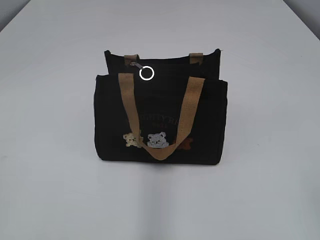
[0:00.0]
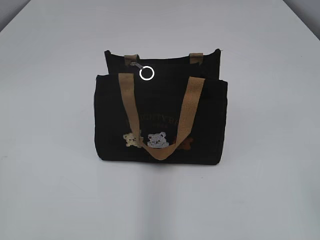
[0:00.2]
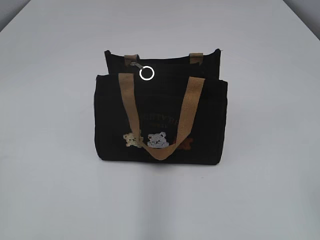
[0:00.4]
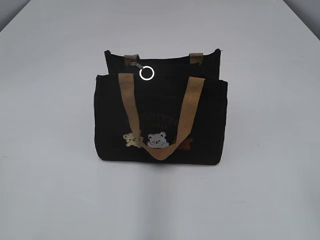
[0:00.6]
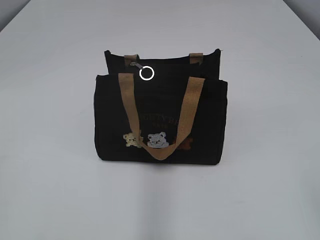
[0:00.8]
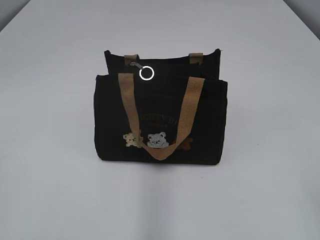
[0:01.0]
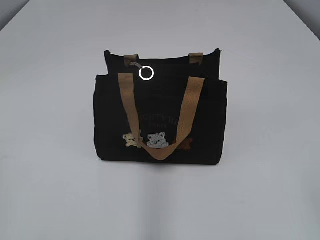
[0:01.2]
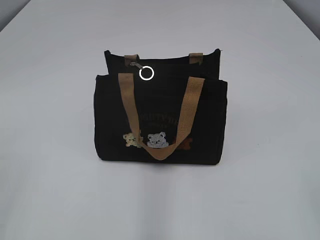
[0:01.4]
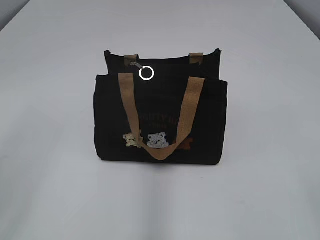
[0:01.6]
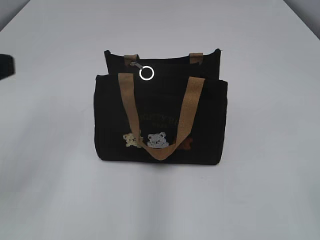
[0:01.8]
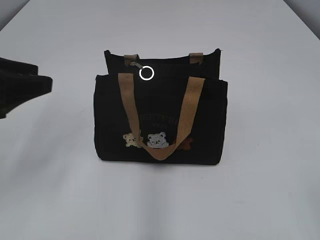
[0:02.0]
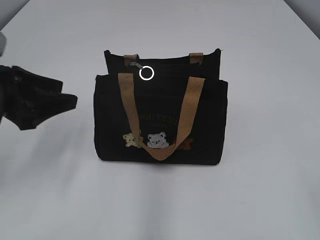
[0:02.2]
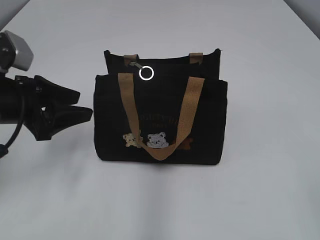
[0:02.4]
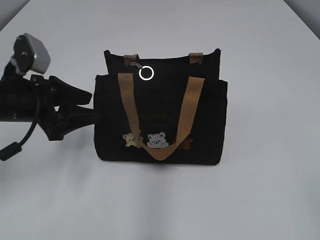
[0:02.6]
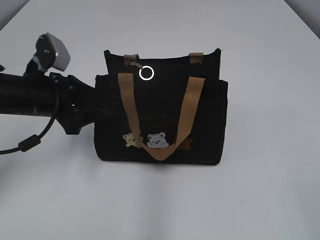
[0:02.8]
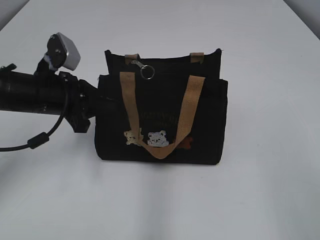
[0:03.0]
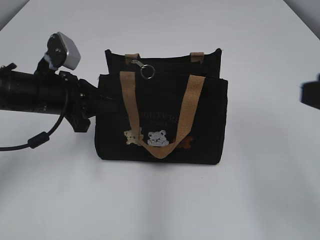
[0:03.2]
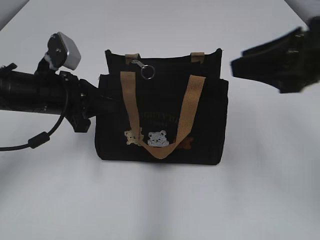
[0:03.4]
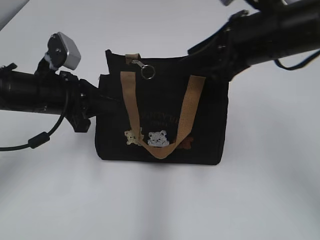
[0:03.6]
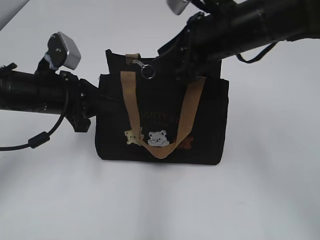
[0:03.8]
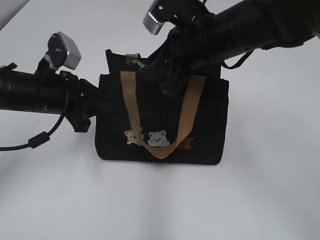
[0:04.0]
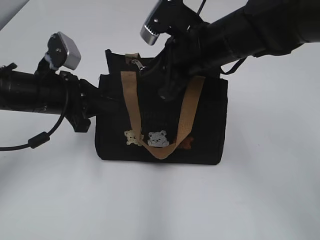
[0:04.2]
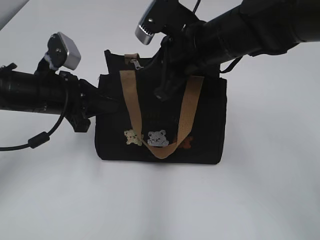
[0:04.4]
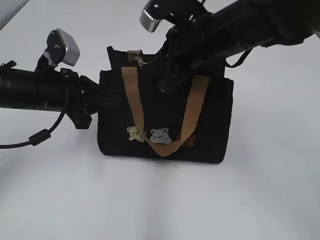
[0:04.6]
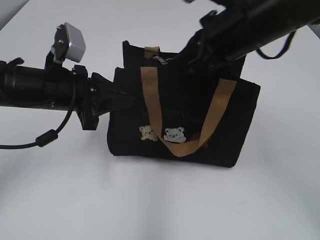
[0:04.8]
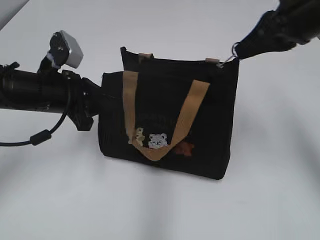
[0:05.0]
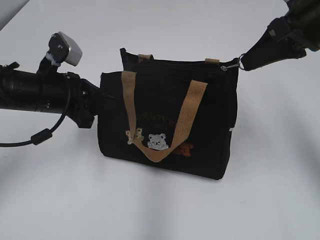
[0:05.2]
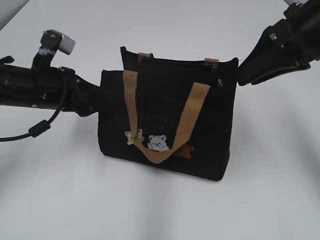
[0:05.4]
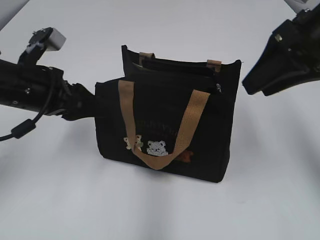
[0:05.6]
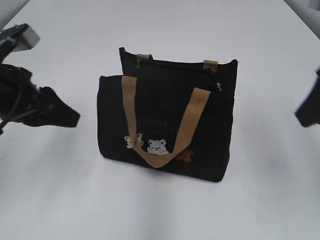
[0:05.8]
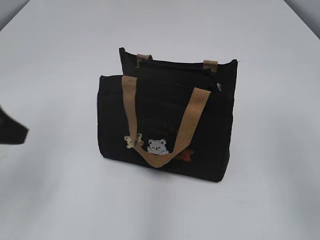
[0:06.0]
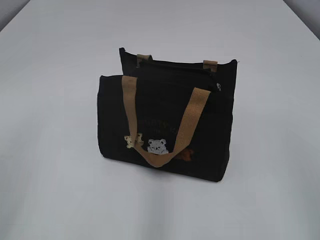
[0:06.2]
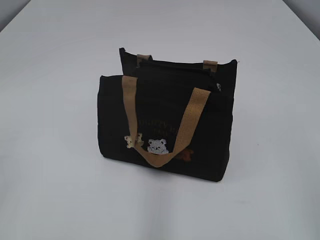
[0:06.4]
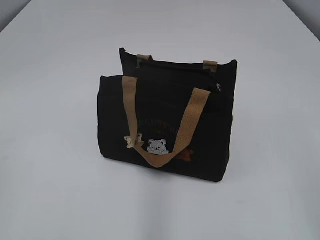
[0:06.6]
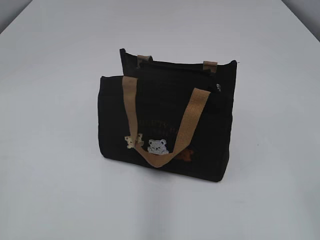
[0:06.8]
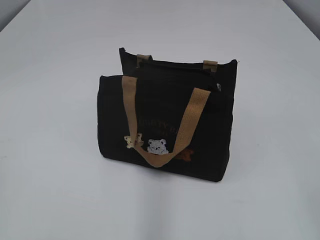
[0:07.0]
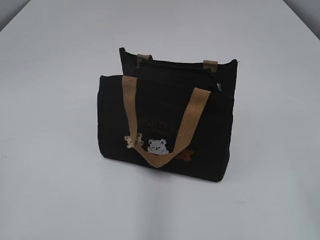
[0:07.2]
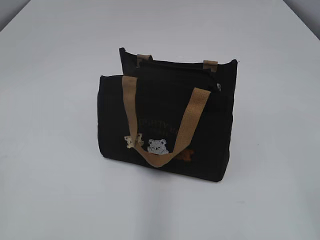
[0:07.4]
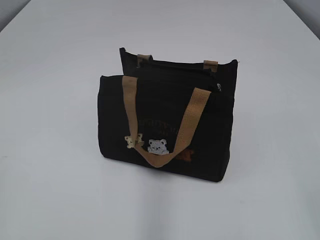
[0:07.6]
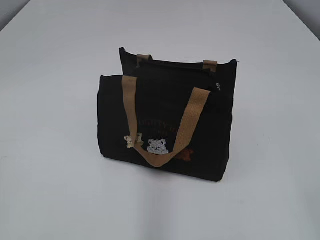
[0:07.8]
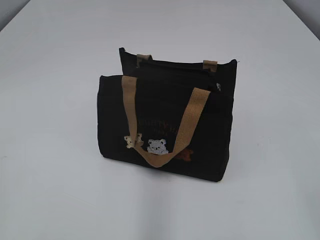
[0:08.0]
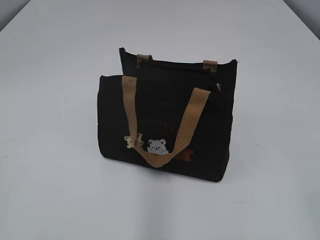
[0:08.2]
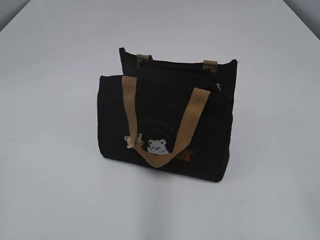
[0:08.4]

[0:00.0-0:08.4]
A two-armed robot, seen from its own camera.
Step, 0:00.0 to 0:05.4: Pull open the zipper with your right hand.
0:01.4 to 0:02.8: The left gripper travels forward by roughly 30 cm, and opens.
0:02.8 to 0:04.2: The right gripper goes some 40 cm forward and to the left; the left gripper closes.
0:04.2 to 0:05.6: The left gripper opens up; the right gripper goes approximately 15 cm to the right and upward, and closes, then opens again.
0:05.6 to 0:07.0: The right gripper goes approximately 30 cm backward, while the left gripper heads backward and to the left, covering approximately 35 cm, and closes.
